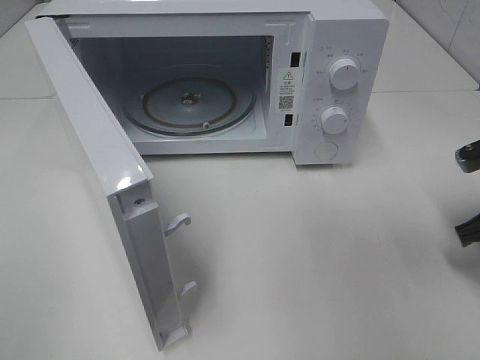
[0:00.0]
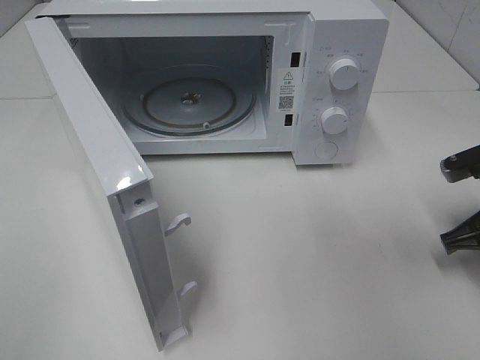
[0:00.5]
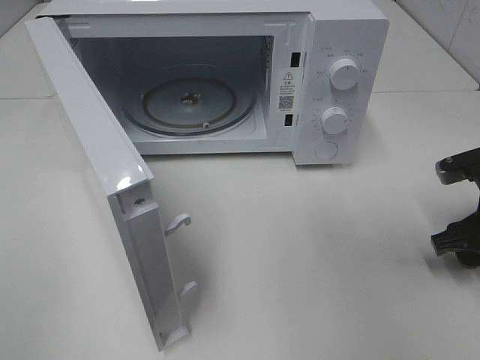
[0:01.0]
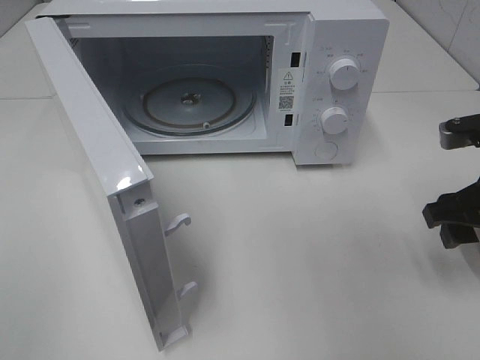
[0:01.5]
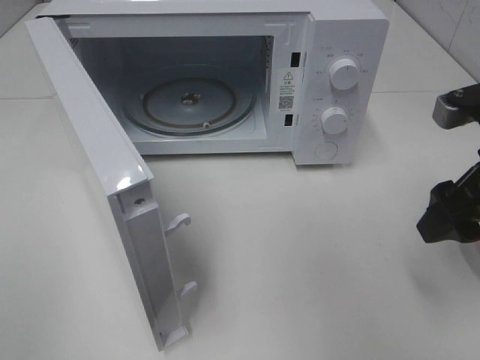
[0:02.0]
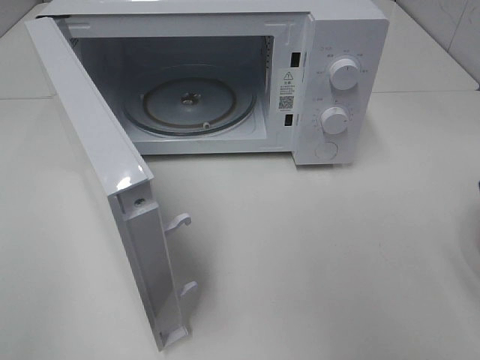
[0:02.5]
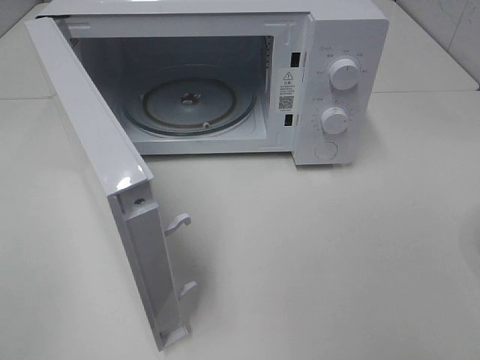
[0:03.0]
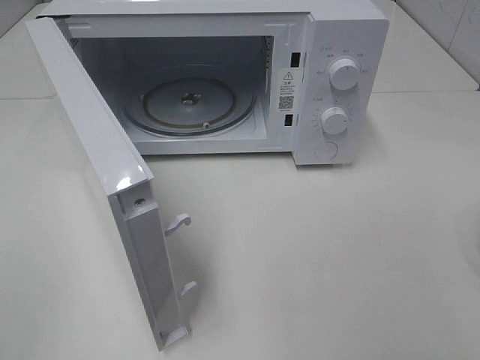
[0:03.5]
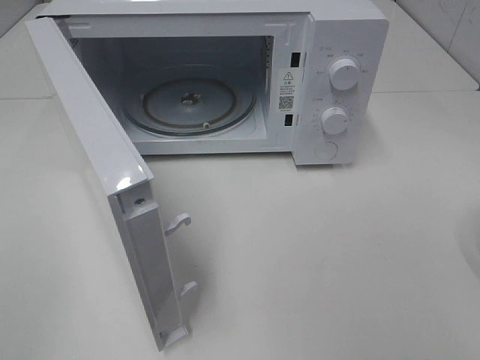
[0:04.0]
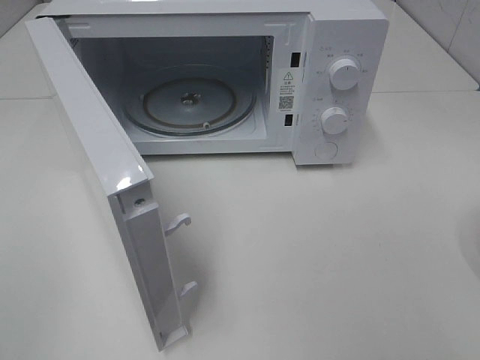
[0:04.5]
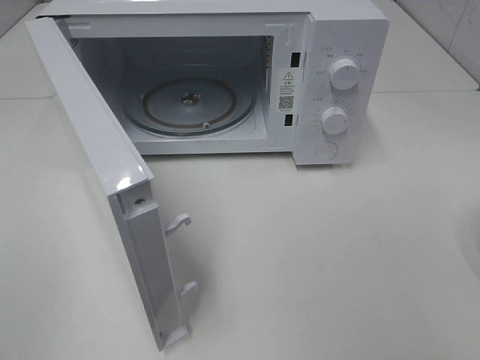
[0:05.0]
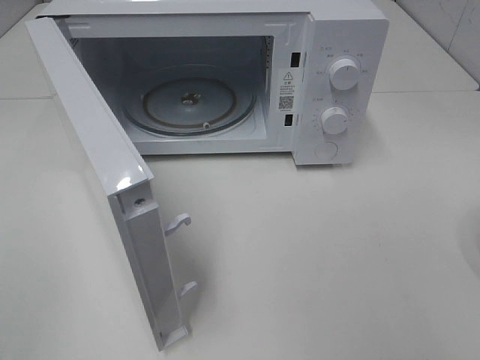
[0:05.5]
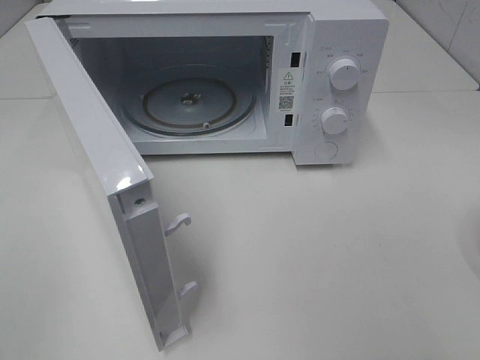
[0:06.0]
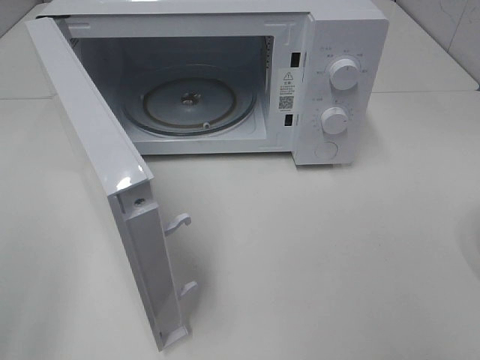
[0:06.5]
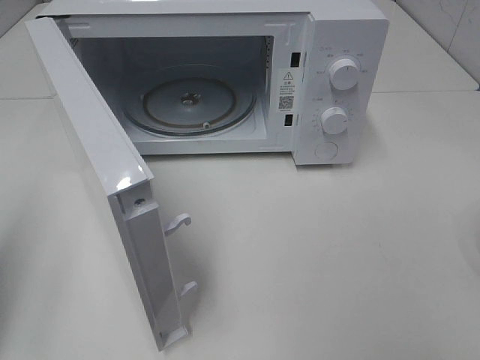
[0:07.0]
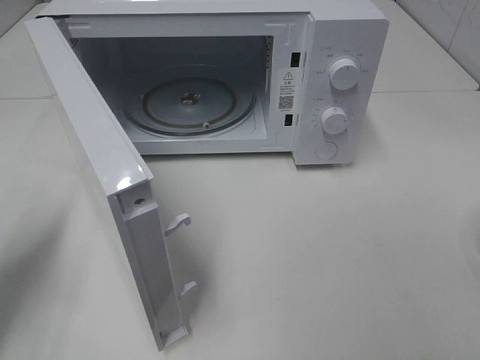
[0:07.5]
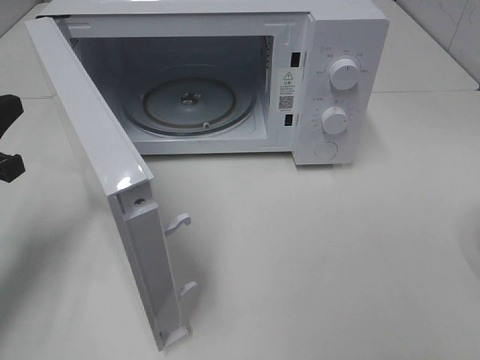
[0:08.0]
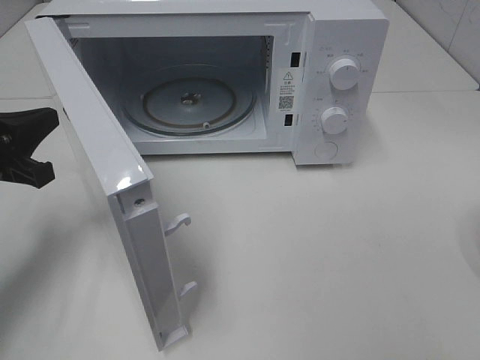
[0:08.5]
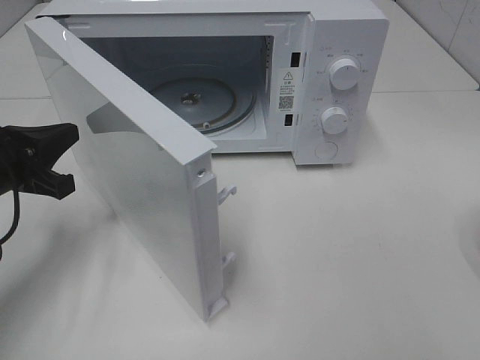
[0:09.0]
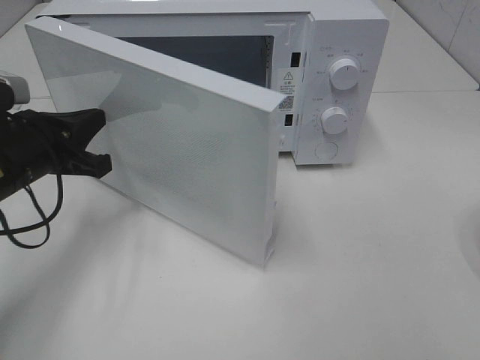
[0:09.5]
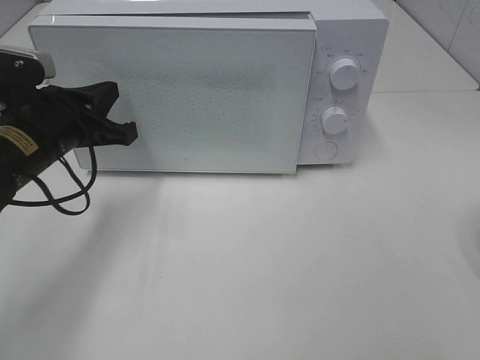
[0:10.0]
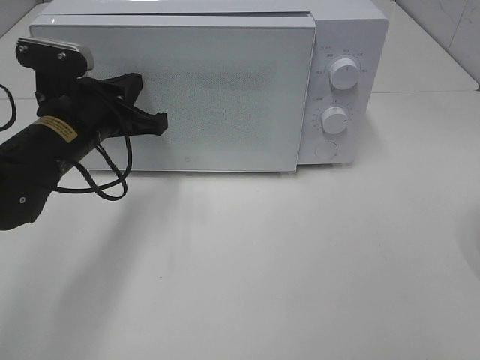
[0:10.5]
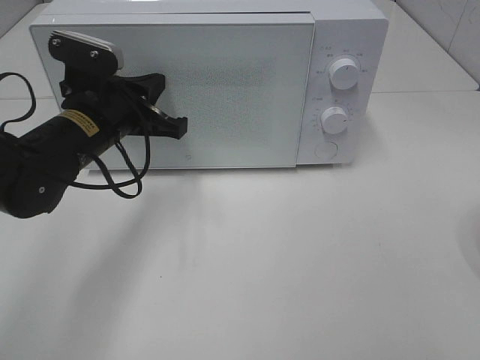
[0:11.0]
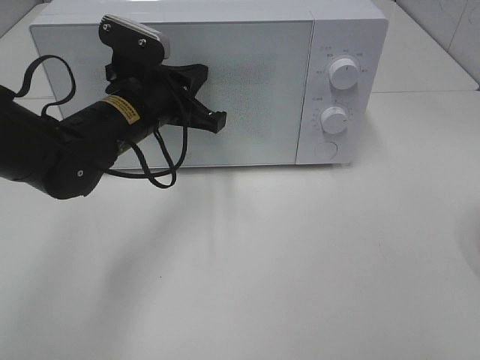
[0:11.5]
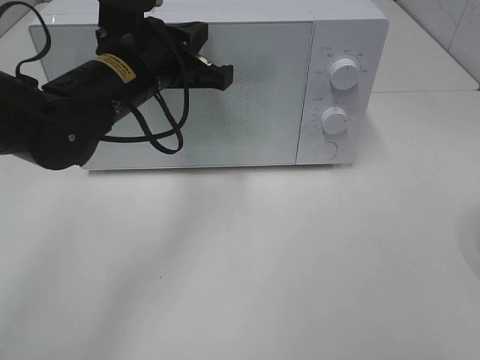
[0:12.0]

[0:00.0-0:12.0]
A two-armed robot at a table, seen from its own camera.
Task of the whole recording: Heat the burger.
Step, 0:01.0 to 0:11.0: Left hand: close the microwave door.
0:00.0 to 0:02.0: The right gripper shifts approximately 10 cm upward, and opens.
0:02.0 to 0:04.0: The right gripper goes roughly 20 cm backward.
0:06.0 to 0:08.0: The left gripper is displaced forward and downward by approximately 25 cm, and closes up.
0:08.0 to 0:10.0: The left gripper shifts roughly 10 cm to the right and forward.
0:10.0 to 0:12.0: The left gripper is displaced to the right and upward by approximately 10 cm.

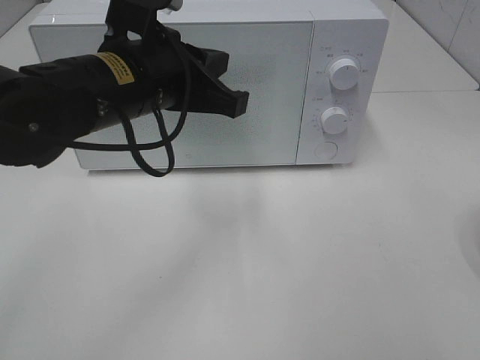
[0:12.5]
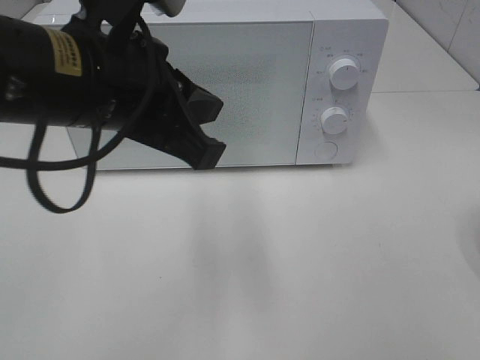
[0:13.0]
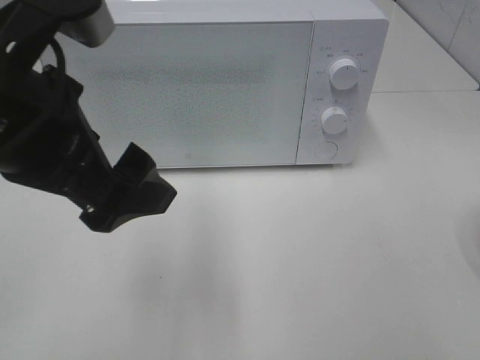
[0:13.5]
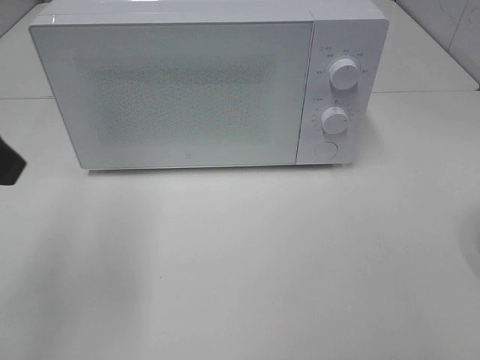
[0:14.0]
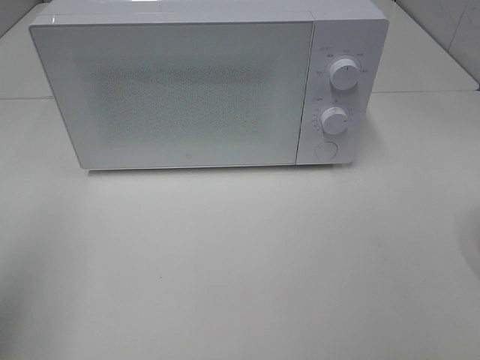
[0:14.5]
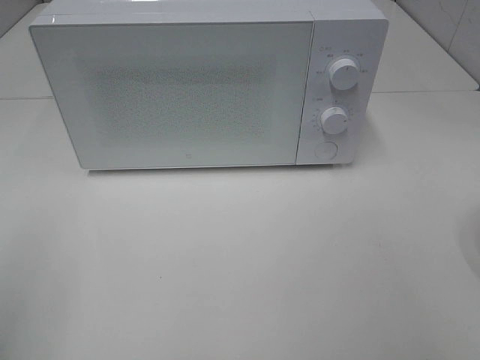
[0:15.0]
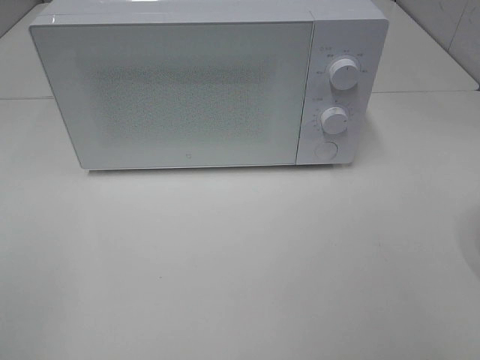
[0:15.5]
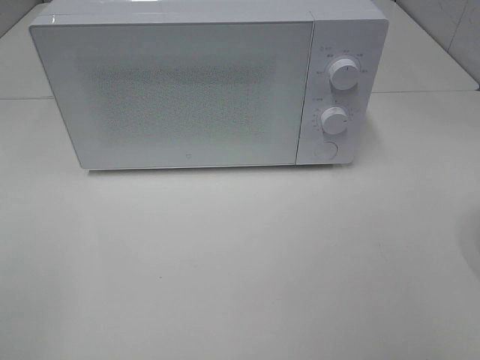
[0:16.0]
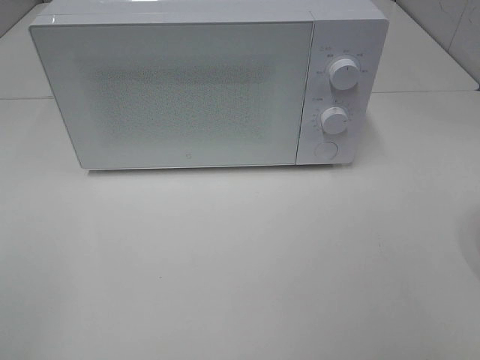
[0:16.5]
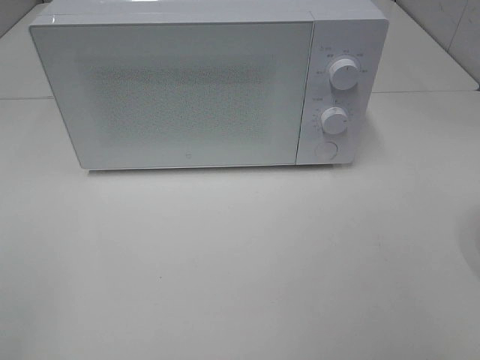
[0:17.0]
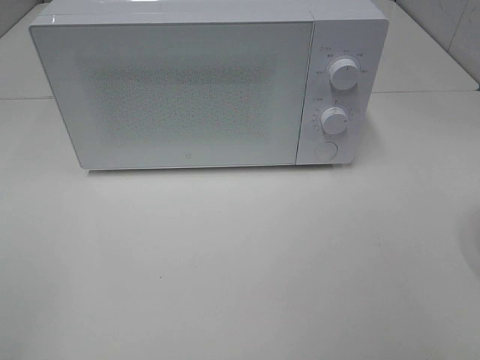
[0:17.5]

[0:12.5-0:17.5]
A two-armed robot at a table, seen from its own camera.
Task of the whole recording: Heat the burger.
0:12.5 to 0:15.0: The left gripper is displaced to the left and backward by roughly 30 cm, and opens.

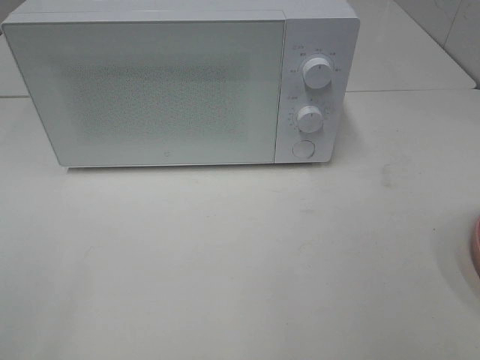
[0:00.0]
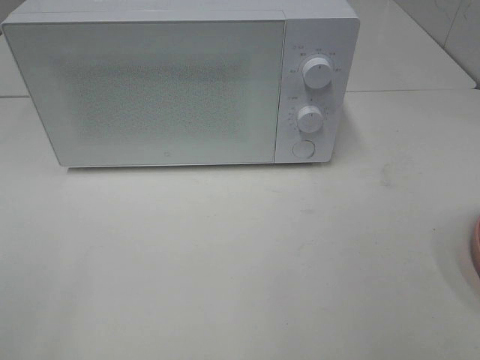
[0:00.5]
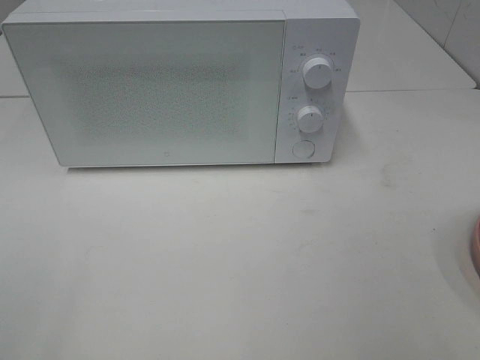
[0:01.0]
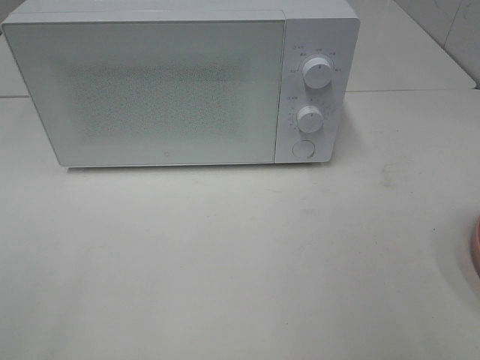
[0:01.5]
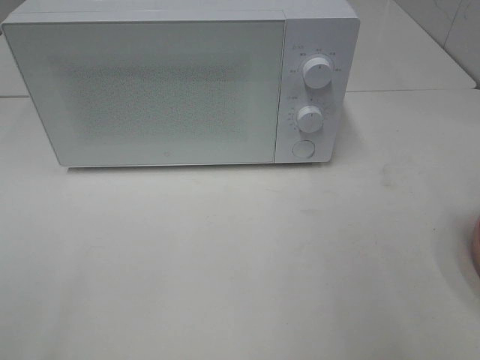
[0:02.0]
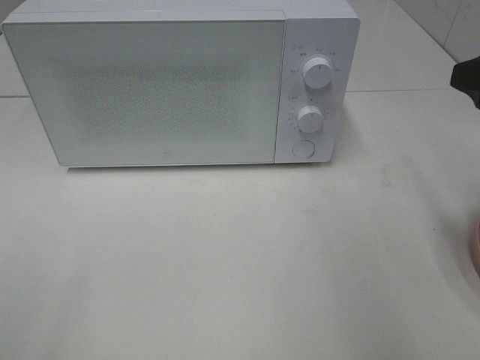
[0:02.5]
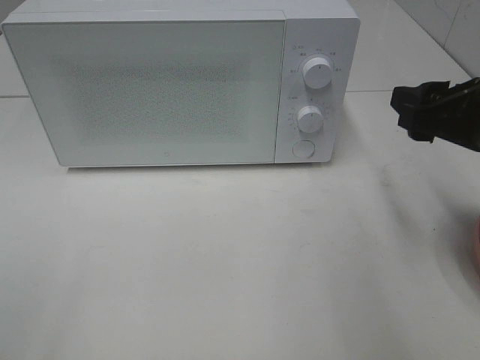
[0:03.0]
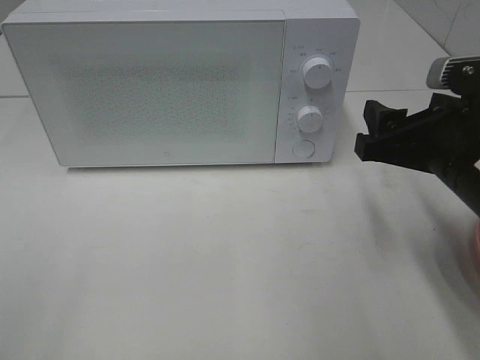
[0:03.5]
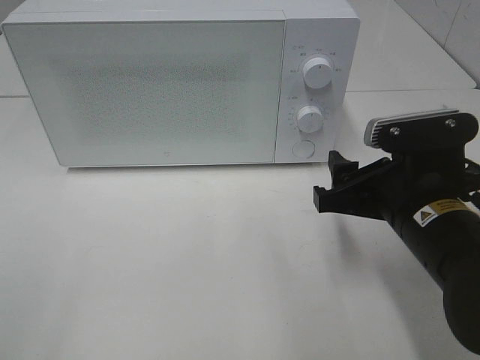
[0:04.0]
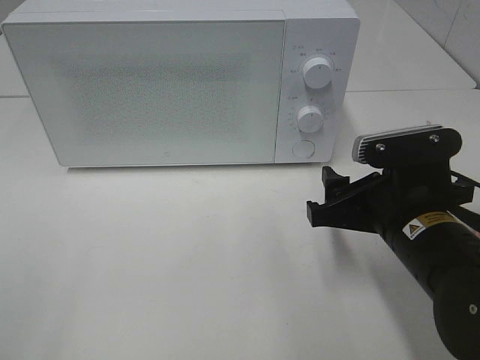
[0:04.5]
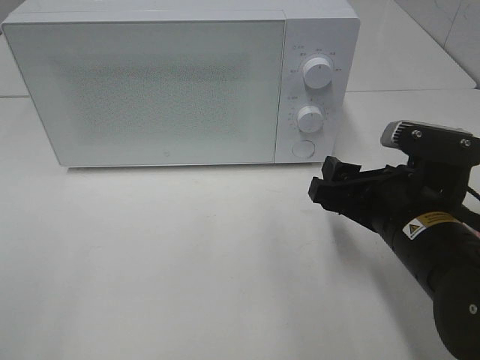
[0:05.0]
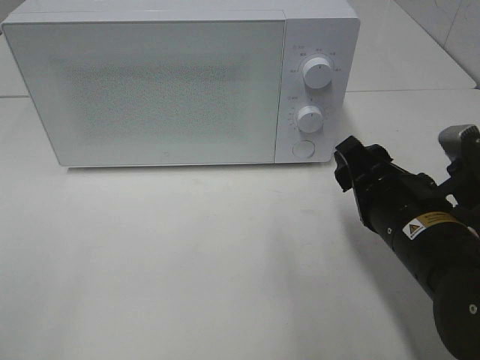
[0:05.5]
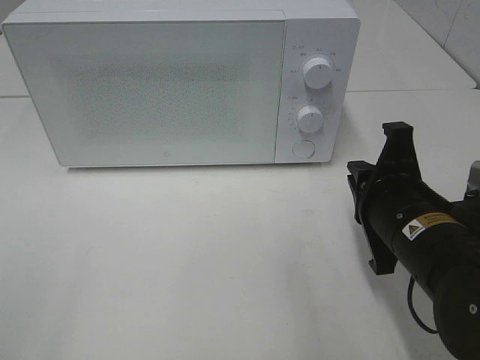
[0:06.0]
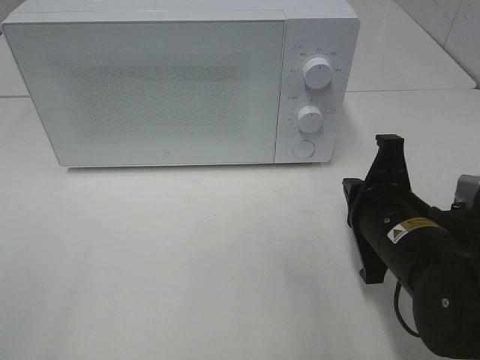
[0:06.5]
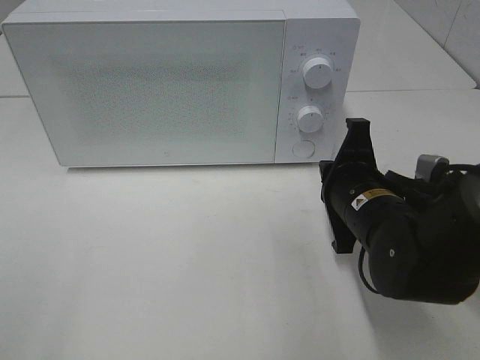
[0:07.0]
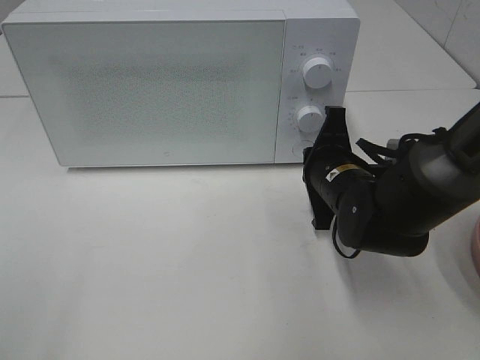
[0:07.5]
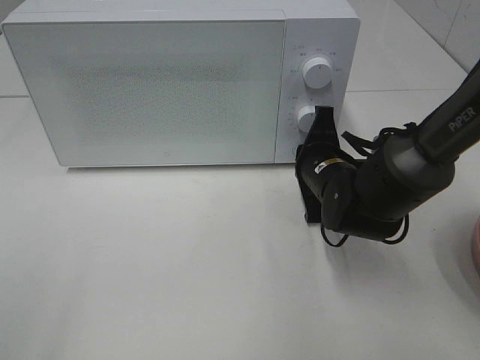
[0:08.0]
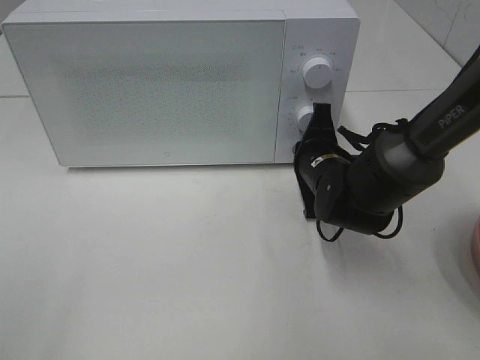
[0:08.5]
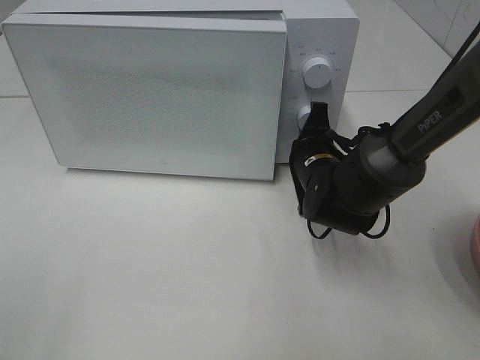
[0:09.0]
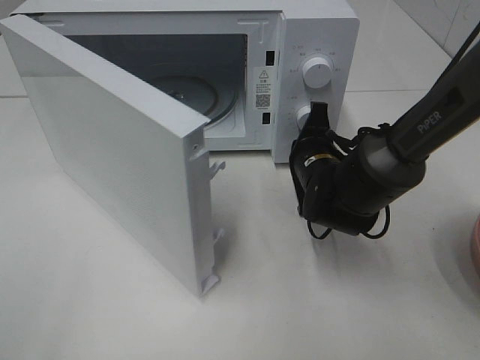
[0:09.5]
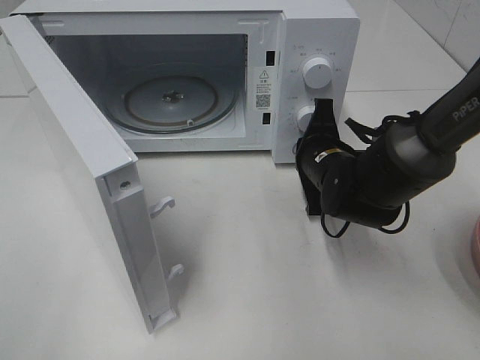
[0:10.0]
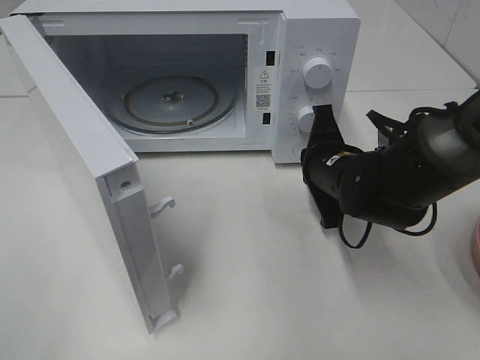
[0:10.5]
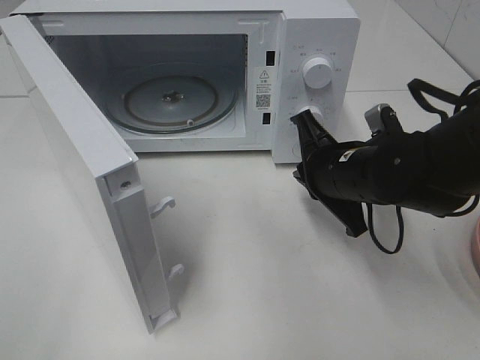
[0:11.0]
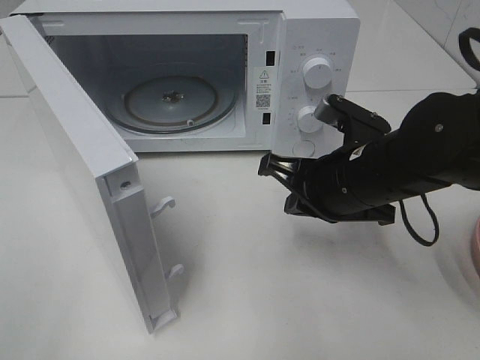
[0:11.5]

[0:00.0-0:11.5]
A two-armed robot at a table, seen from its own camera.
Task of the whole recording: Heat the burger.
Step, 0:00.0 to 0:10.0: Right hand: press the switch.
0:02.0 to 0:04.0: The right gripper shifts about 20 cm downward and to the left.
0:04.0 to 0:06.0: The right gripper closes.
0:06.0 to 0:07.5: The right gripper travels forward by roughly 10 cm.
0:07.5 to 0:09.5: The right gripper shifts by about 5 cm.
0:09.5 to 0:11.5: The right gripper travels backward and upward by approximately 10 cm.
